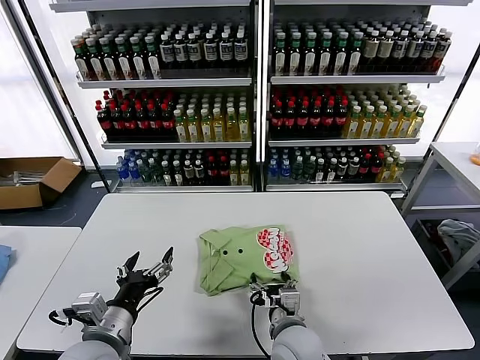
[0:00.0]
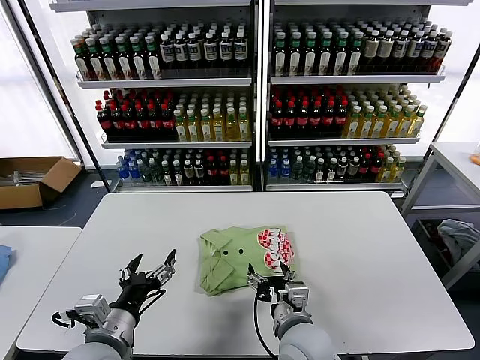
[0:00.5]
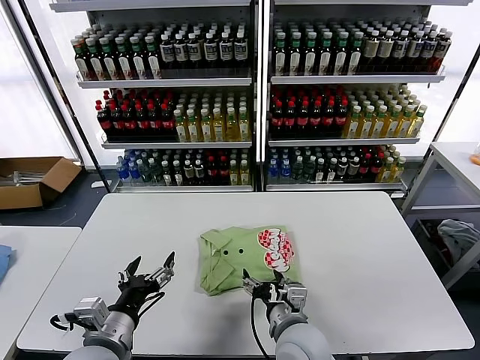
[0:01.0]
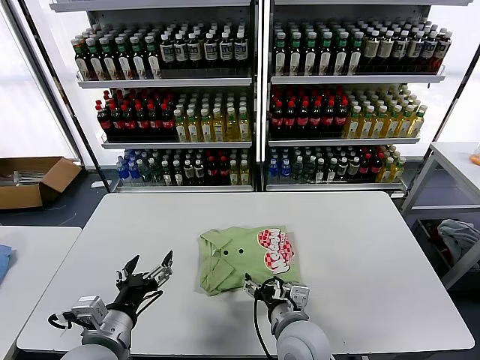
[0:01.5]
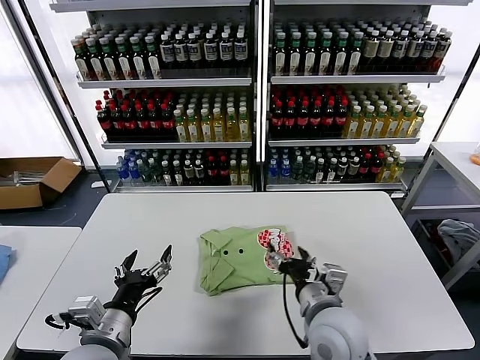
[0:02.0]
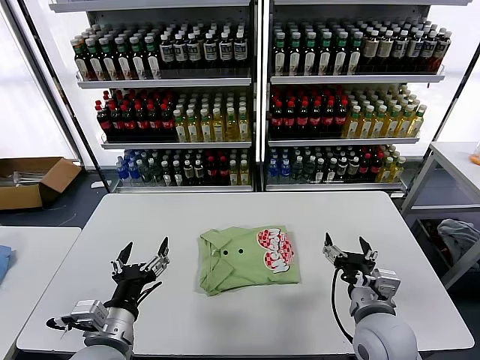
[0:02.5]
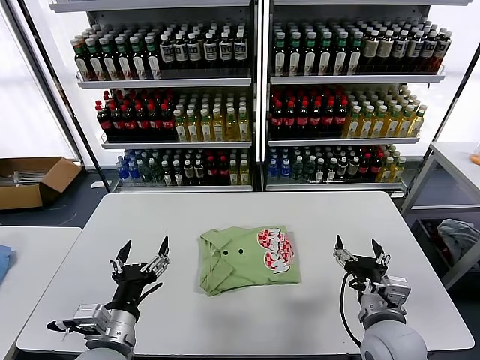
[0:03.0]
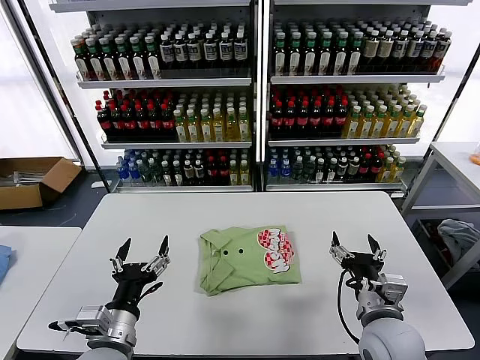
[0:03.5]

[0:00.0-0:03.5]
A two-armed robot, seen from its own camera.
Task of the whole recording: fold and organize the clothes.
0.0 to 2.0 s: The right gripper heads upward, covering approximately 10 cm.
2.0 to 3.5 s: The right gripper is displaced to the right by about 10 cm.

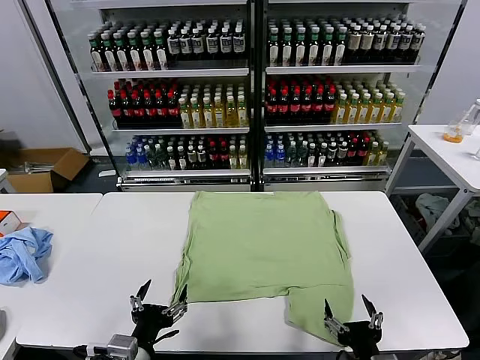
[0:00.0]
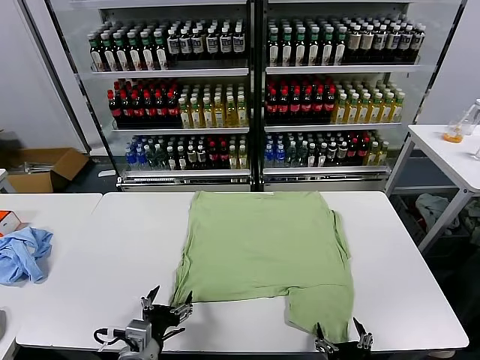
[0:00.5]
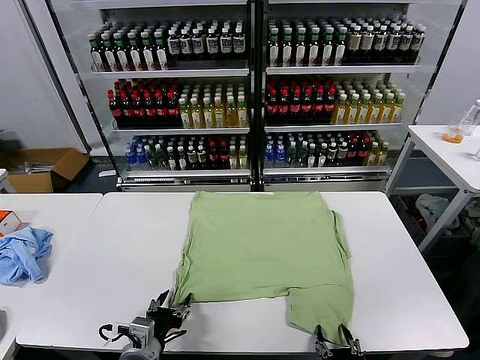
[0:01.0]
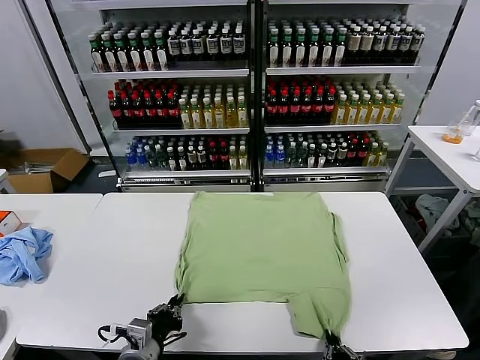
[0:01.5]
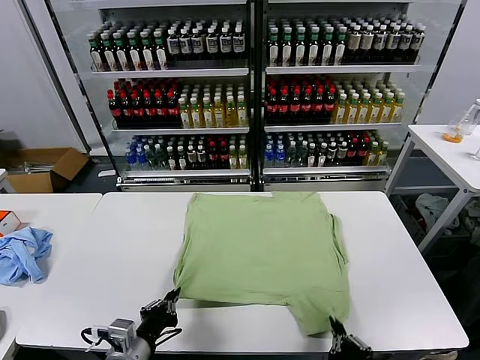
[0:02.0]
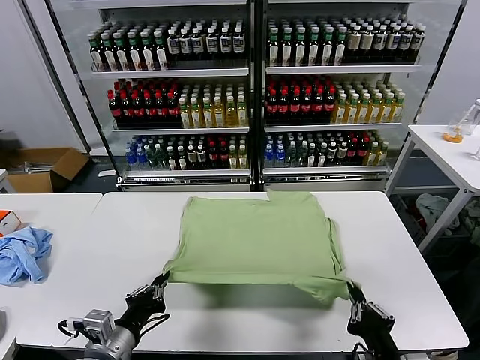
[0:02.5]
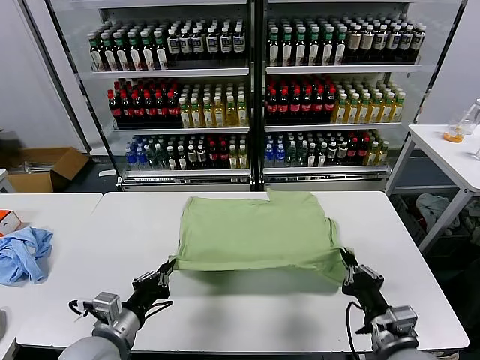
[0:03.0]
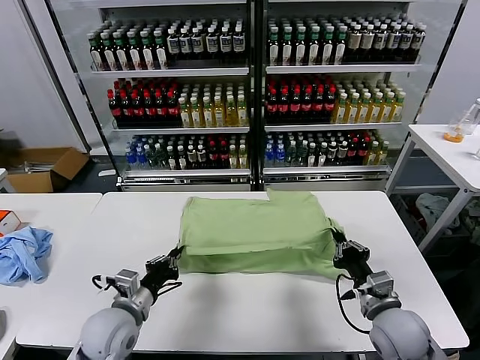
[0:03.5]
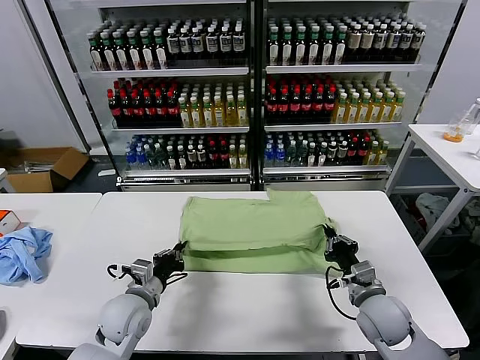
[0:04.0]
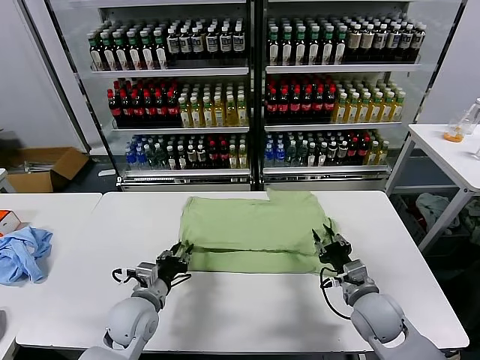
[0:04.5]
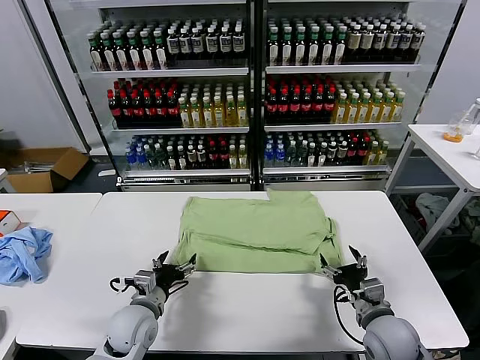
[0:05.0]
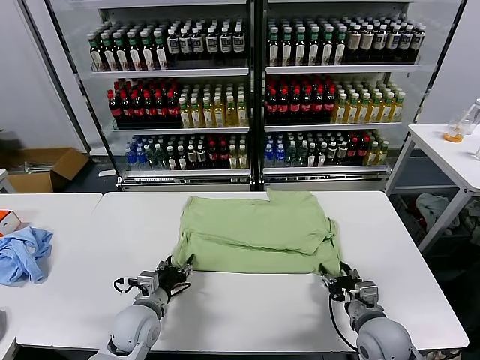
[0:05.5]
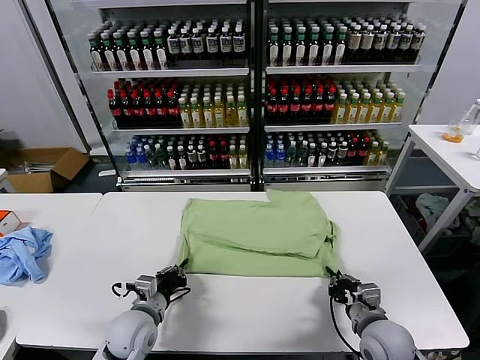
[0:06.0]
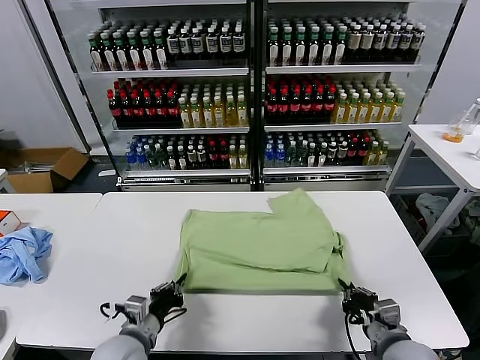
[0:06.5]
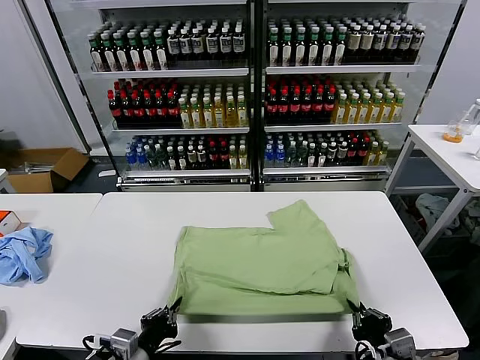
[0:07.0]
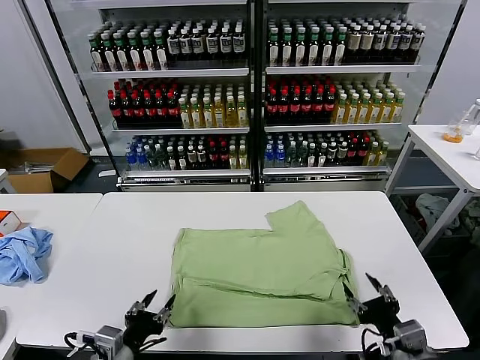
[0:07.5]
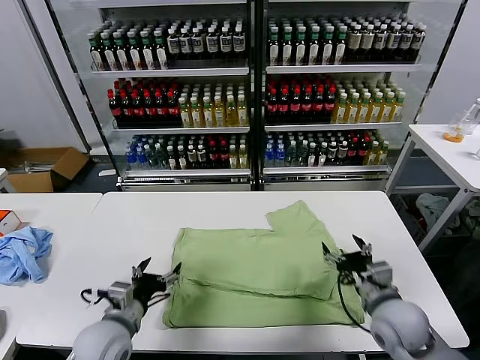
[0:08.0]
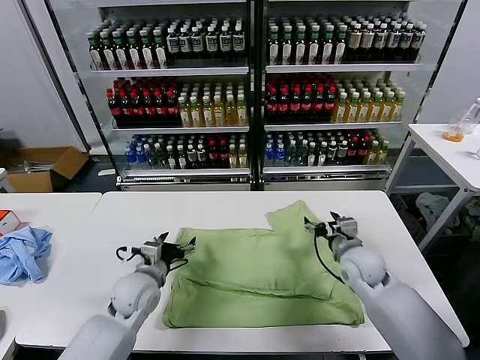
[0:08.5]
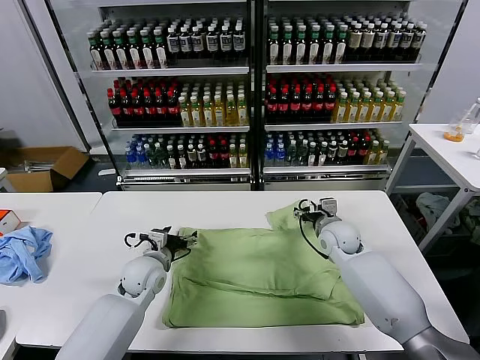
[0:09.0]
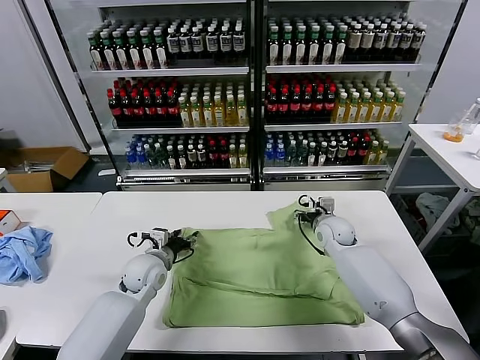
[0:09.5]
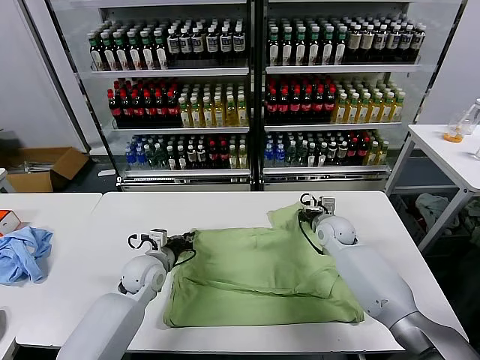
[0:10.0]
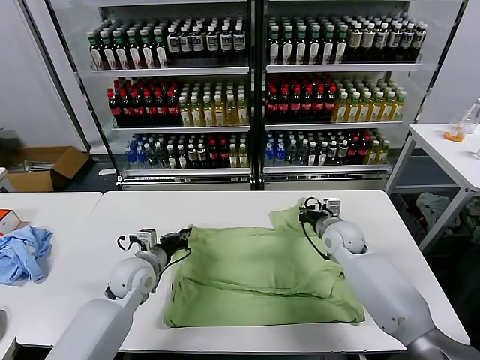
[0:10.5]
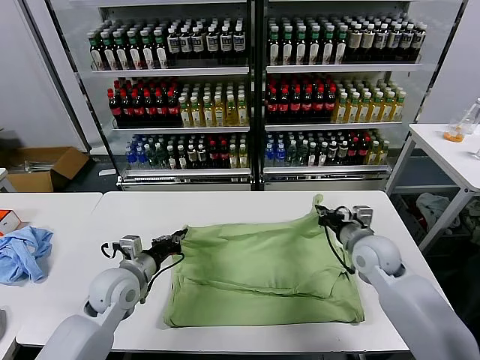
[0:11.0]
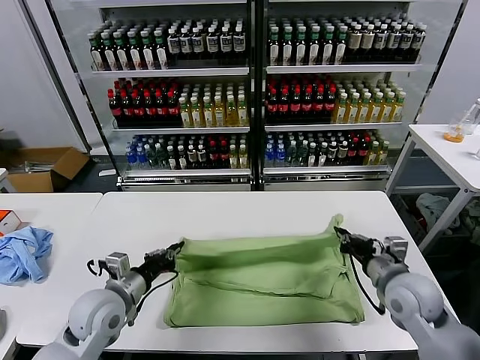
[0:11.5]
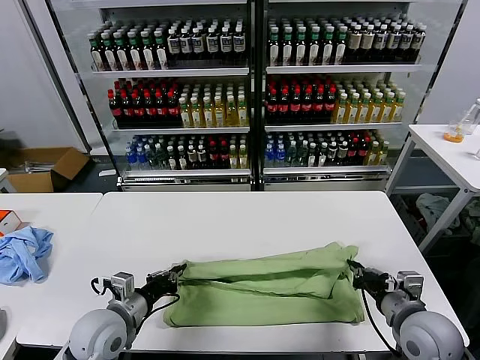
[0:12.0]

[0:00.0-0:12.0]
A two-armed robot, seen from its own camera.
Task of the whole recording: fold and organize the clothes.
Step, 0.0 to 1.5 s: use both grippers simultaneously to clamp the lower edge of the clothing fabric.
Step, 2.0 to 4.5 s: use both grippers to drag the lower edge of the fabric forward and fold it over the upper edge.
Step, 5.0 to 7.0 s: Drag the clothes downward with both gripper.
Step, 7.5 to 10.0 s: use both grippers simultaneously to clamp the upper edge of the clothing fabric.
2.0 to 4.0 s: The right gripper shifts approximately 20 cm forward, while the left gripper heads forward, covering some 15 cm.
4.0 to 6.0 s: The right gripper shifts approximately 5 cm backward, and opens, then closes again. Meanwhile the left gripper opens, then closes again.
6.0 to 8.0 s: Both grippers move upward, some 5 cm. The left gripper reaches roughly 15 cm backward, then returns, and opens up; the right gripper goes backward and returns, some 10 cm each way, and opens its fingers.
8.0 to 10.0 s: The two grippers go about 20 cm forward. The left gripper closes its fingers, while the right gripper closes.
10.0 to 12.0 s: The left gripper is displaced backward by approximately 15 cm; the right gripper travels backward by about 30 cm.

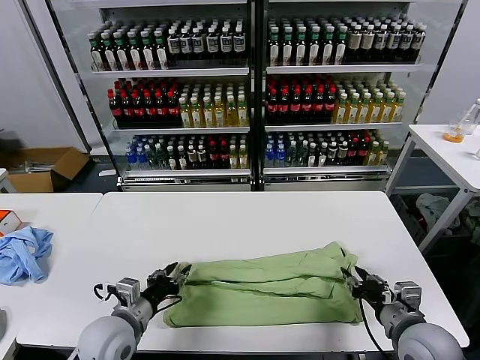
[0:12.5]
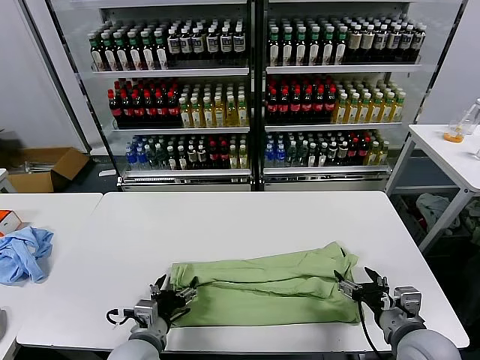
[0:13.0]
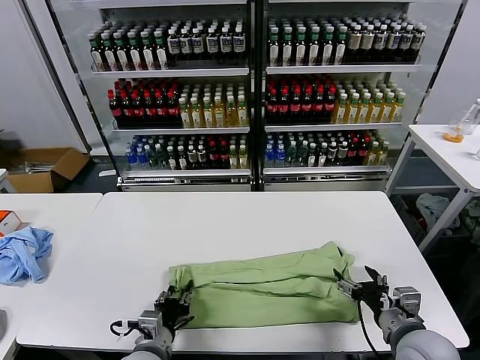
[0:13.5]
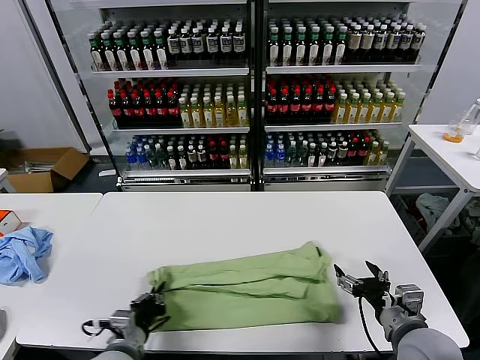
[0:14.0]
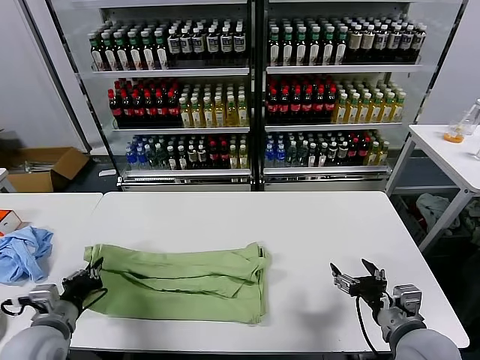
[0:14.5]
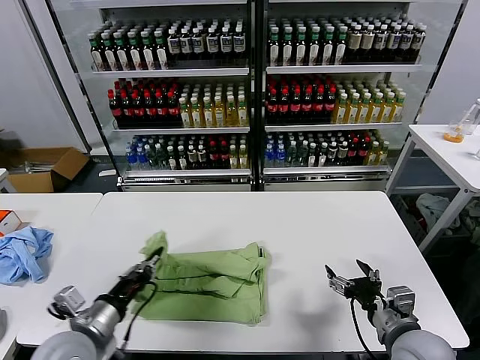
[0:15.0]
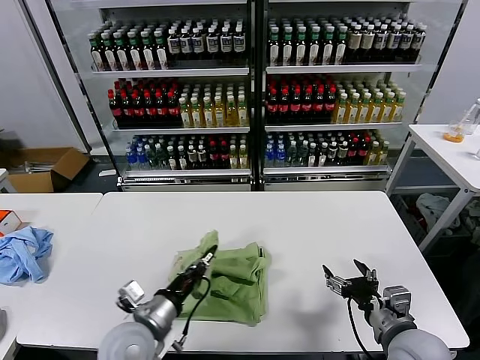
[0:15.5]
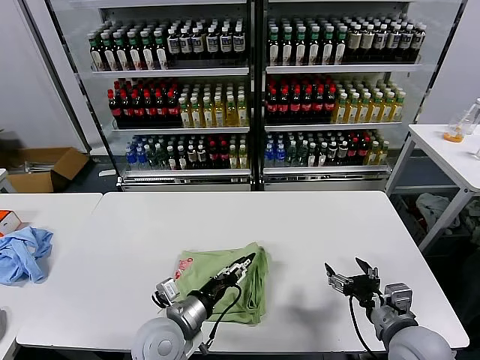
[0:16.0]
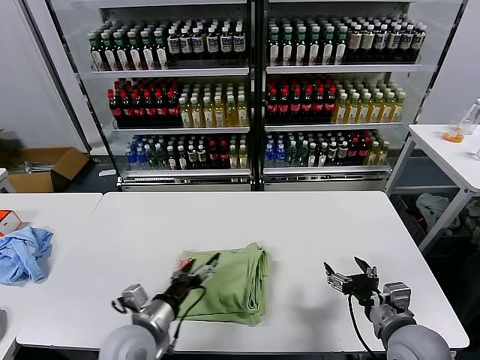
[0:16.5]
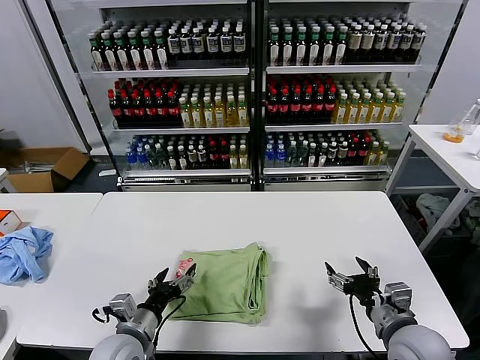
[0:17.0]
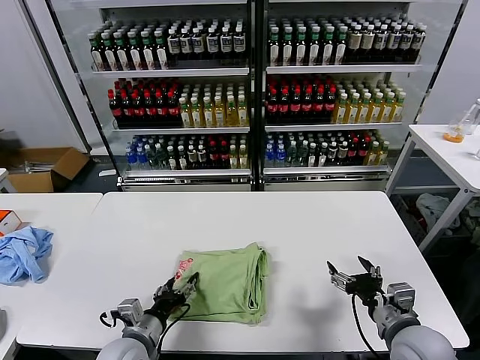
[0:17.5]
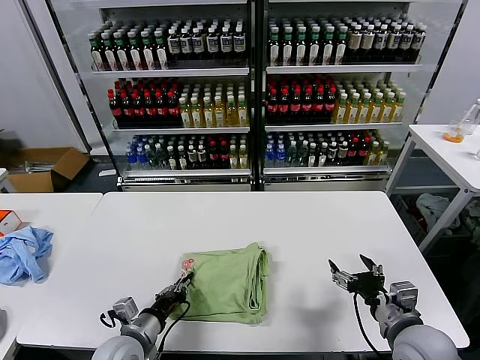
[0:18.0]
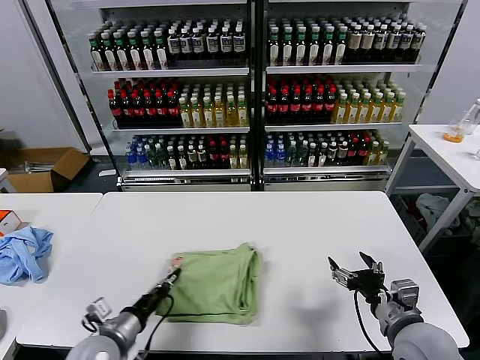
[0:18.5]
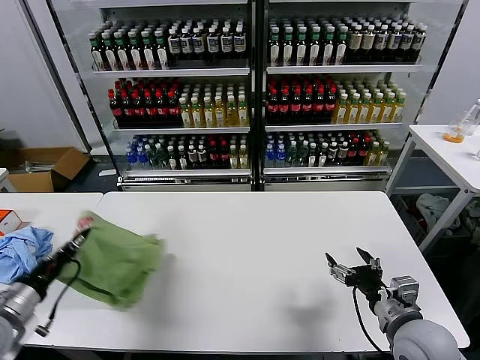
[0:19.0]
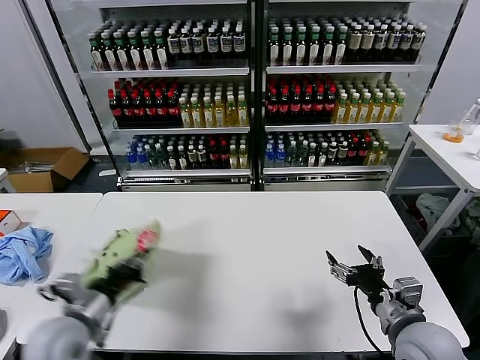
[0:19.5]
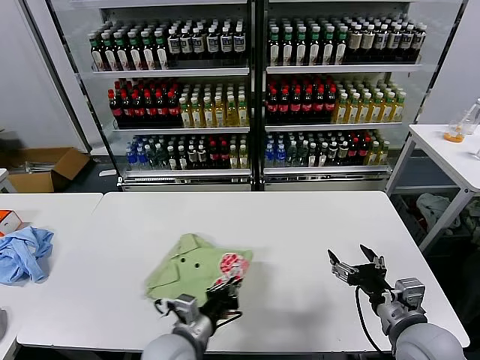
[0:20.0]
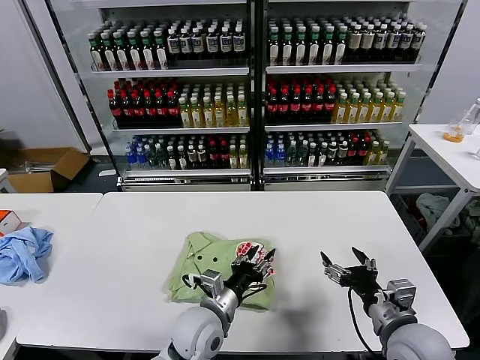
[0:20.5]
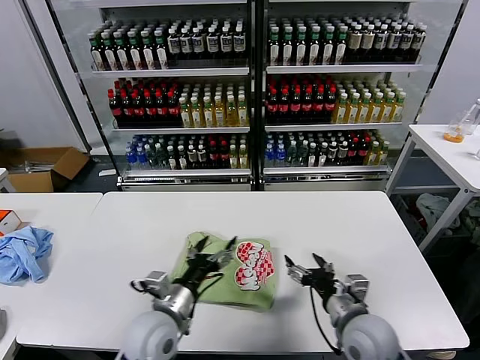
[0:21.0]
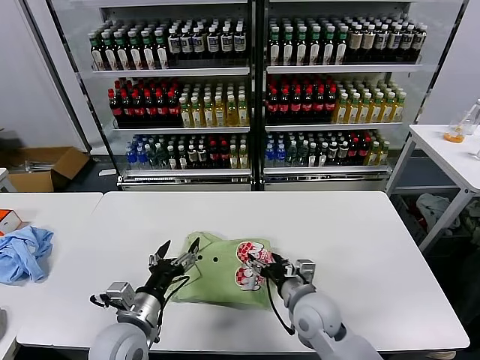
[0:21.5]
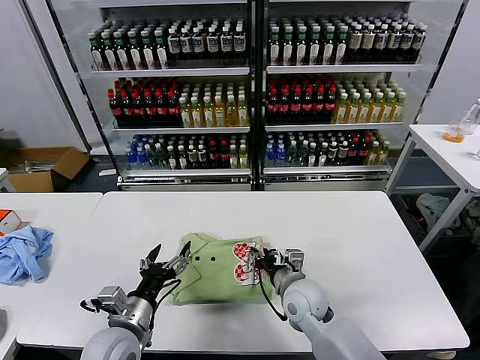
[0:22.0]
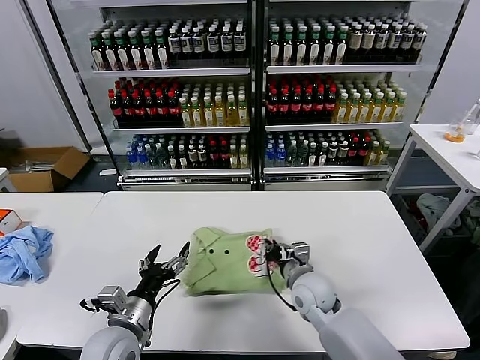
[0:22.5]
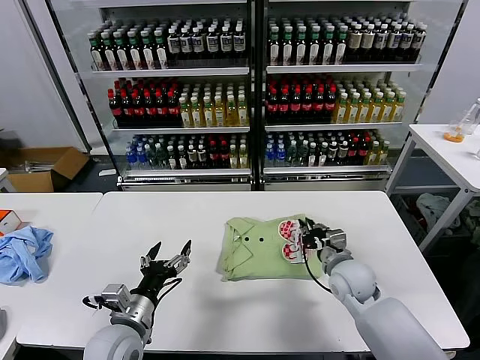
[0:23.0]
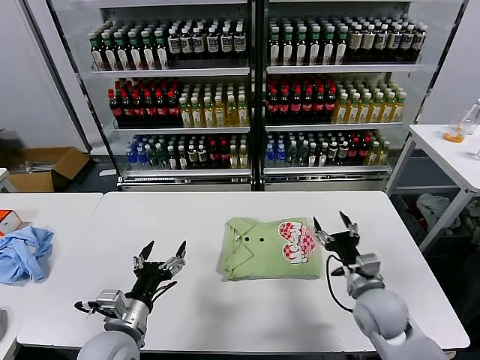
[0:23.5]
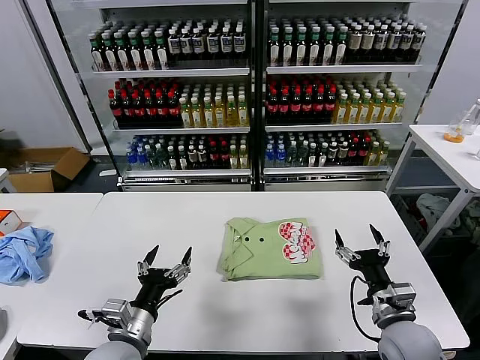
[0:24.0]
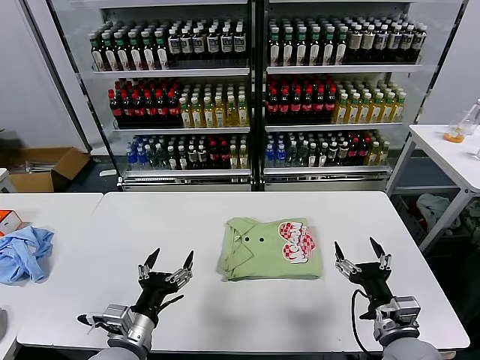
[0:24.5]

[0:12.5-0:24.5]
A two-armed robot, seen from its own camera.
Task of the whole recording: fold and organize the clothes.
Step, 13.0 to 13.5 s: use the left gripper to clamp the left edge of the fabric.
Step, 14.0 to 16.0 s: use the left gripper to drag the left edge of the fabric to the left and folds it over the right edge.
Step, 16.5 to 20.0 s: Flip the folded clothes over with left gripper.
Step, 20.5 to 23.0 s: Drag the clothes to the center of the table.
12.5 to 14.5 s: The right gripper opens, while the left gripper shifts roughly 10 cm to the left, and closes.
14.5 to 16.5 s: The left gripper is displaced to the right by approximately 15 cm, and opens.
16.5 to 18.5 s: The left gripper is displaced to the left by roughly 10 cm, and closes.
18.5 to 20.5 s: The left gripper is displaced to the right by some 20 cm, and opens its fingers.
20.5 to 22.5 s: The left gripper shifts about 15 cm to the left, and opens its fingers. The right gripper heads forward, to the left and downward, covering roughly 20 cm, and closes up.
22.5 to 24.5 s: The right gripper is displaced backward and to the right by approximately 20 cm, and opens up.
